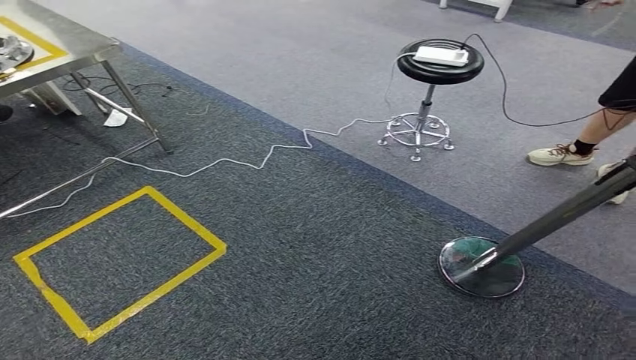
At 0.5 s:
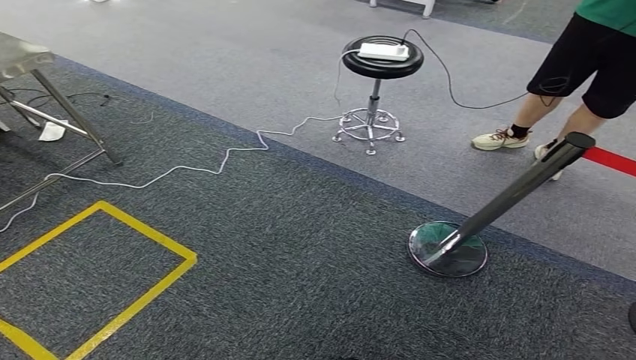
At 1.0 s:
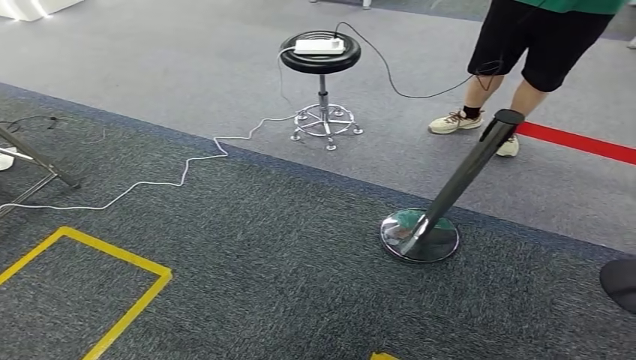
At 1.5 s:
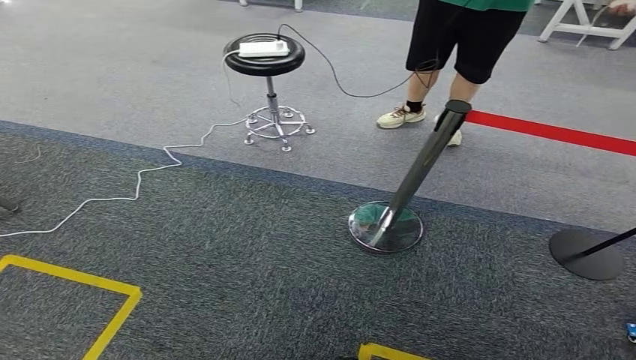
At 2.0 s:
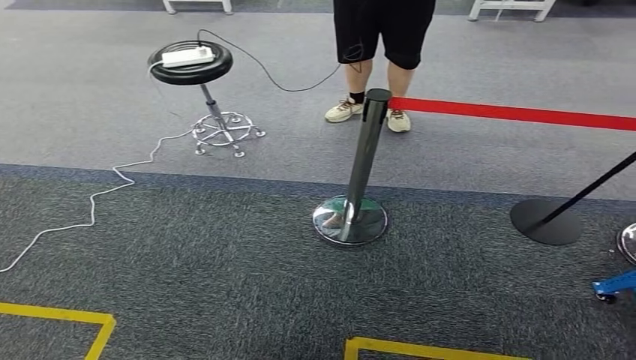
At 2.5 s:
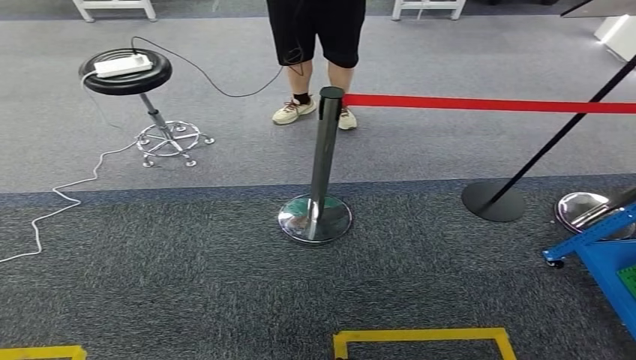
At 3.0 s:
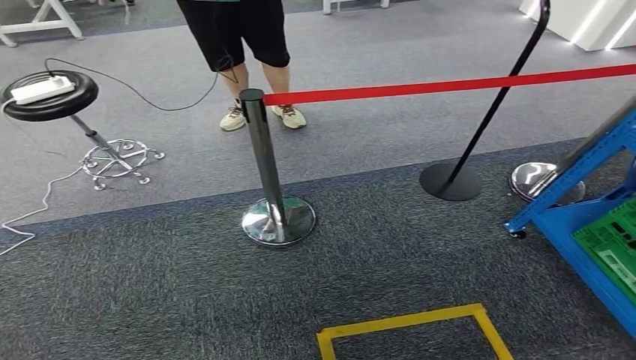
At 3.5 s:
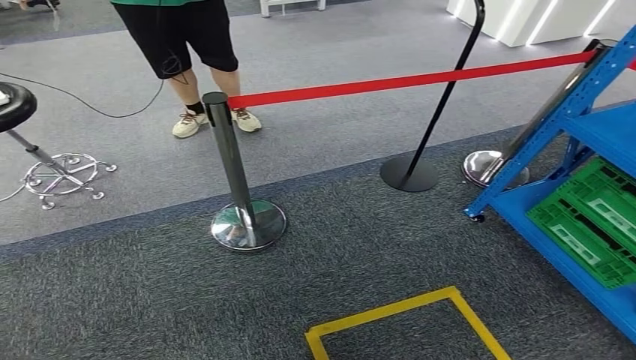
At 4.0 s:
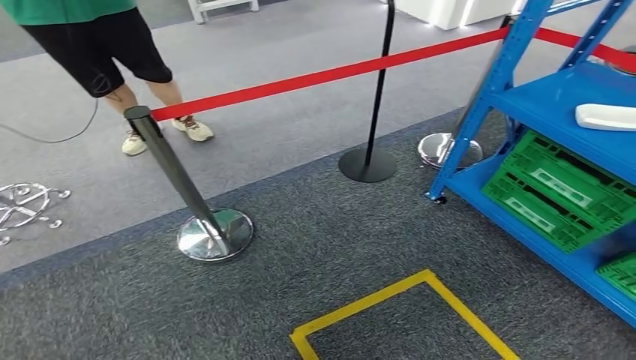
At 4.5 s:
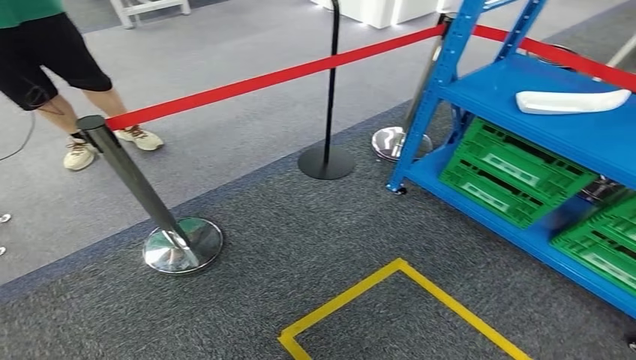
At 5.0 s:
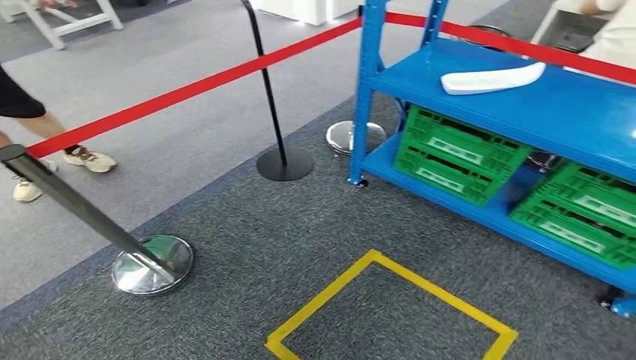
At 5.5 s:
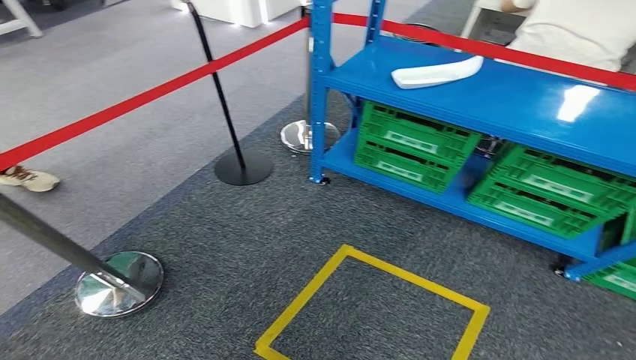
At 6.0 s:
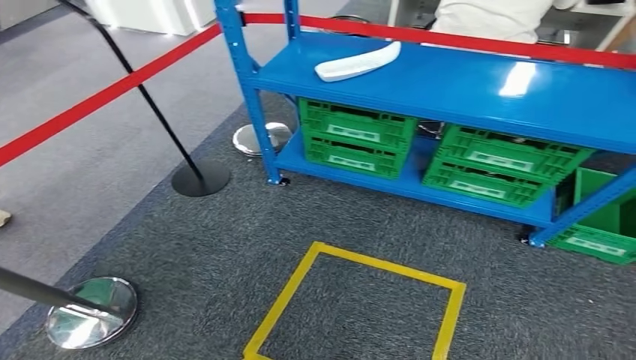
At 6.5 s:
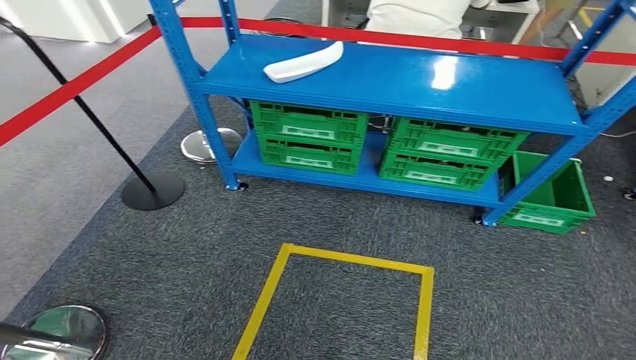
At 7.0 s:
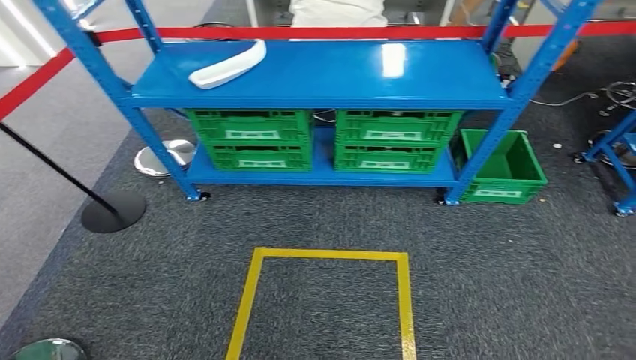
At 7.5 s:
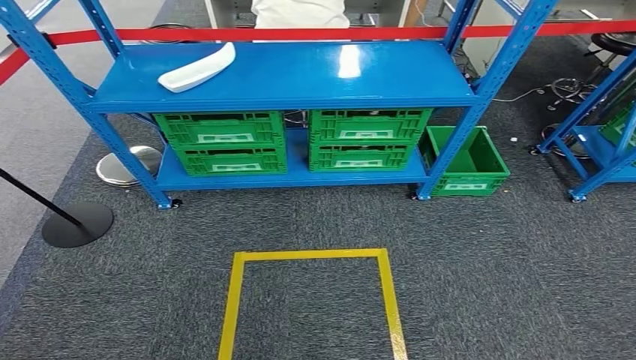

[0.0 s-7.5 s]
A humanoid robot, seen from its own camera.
Step, 0.0 to 7.5 s: Move to the initial position at the workbench.
